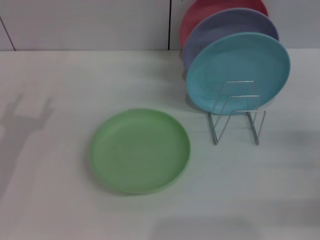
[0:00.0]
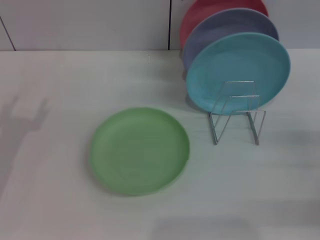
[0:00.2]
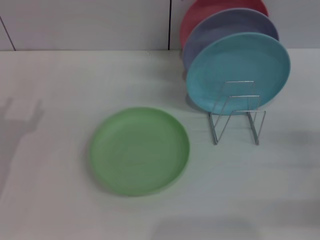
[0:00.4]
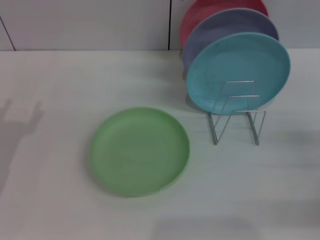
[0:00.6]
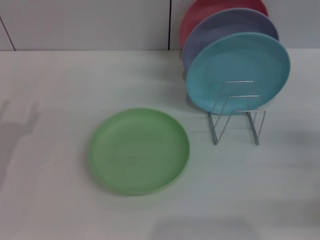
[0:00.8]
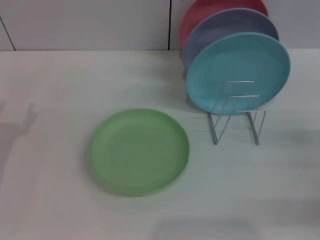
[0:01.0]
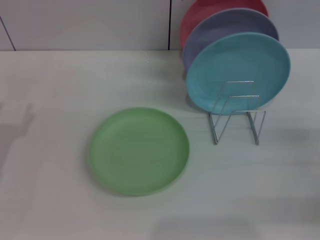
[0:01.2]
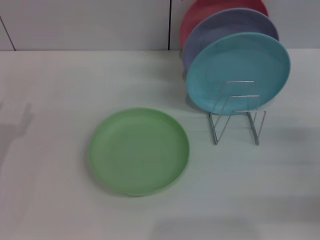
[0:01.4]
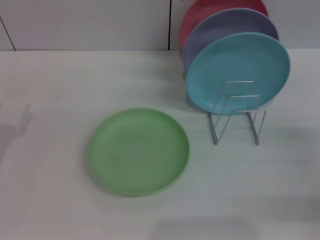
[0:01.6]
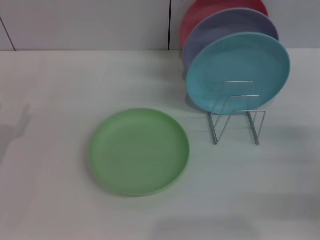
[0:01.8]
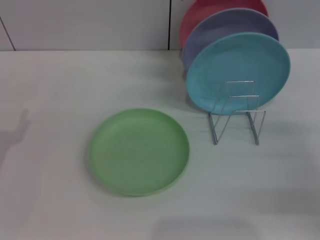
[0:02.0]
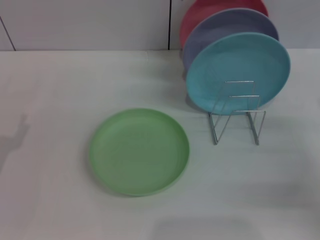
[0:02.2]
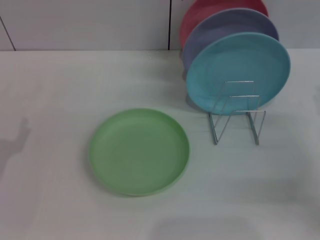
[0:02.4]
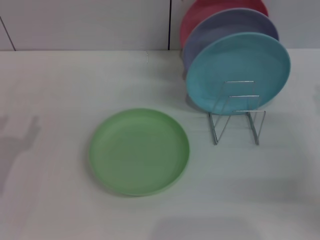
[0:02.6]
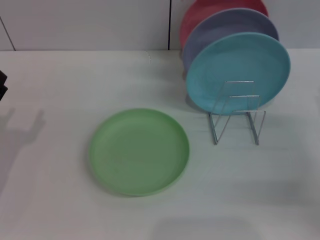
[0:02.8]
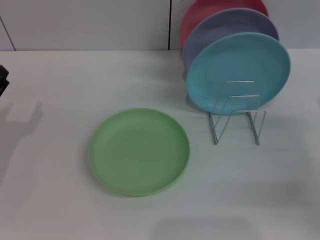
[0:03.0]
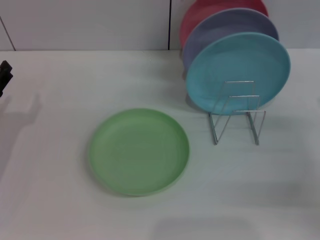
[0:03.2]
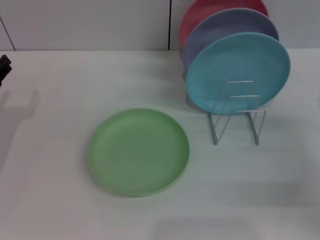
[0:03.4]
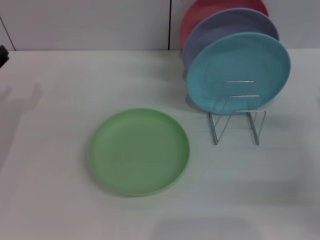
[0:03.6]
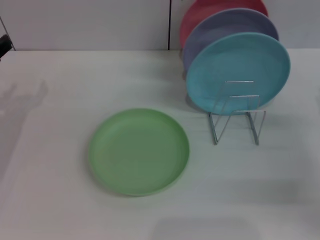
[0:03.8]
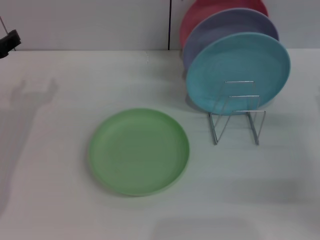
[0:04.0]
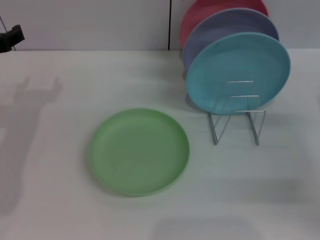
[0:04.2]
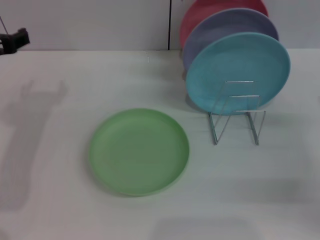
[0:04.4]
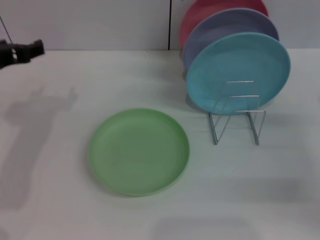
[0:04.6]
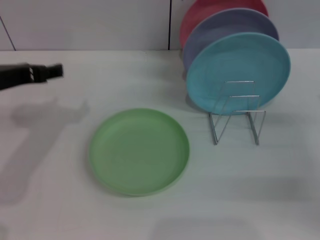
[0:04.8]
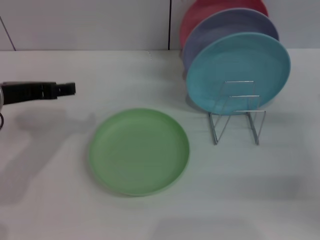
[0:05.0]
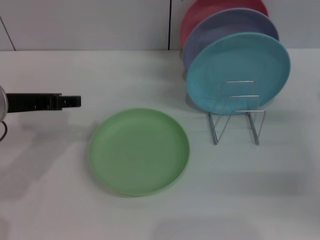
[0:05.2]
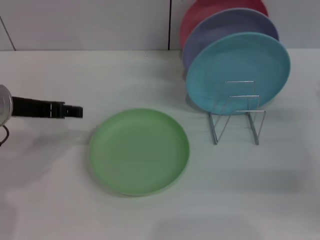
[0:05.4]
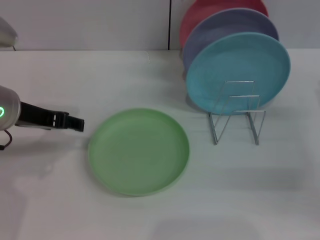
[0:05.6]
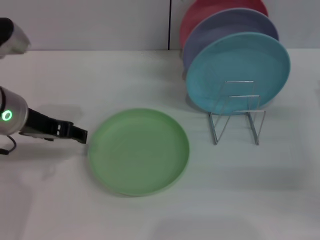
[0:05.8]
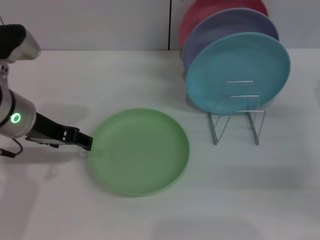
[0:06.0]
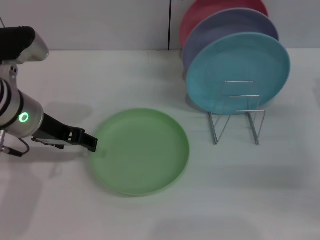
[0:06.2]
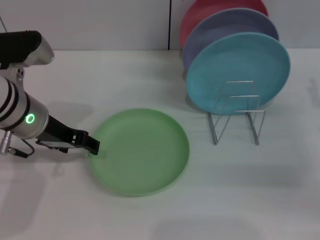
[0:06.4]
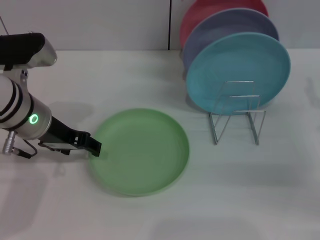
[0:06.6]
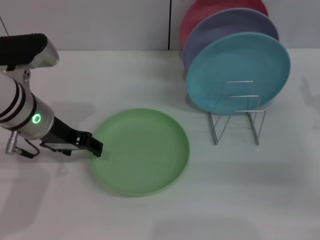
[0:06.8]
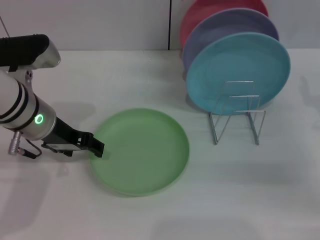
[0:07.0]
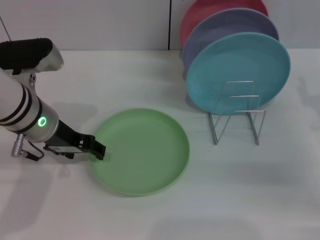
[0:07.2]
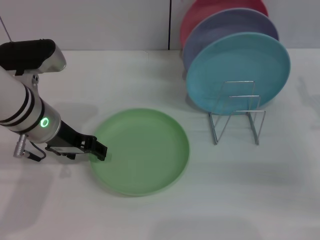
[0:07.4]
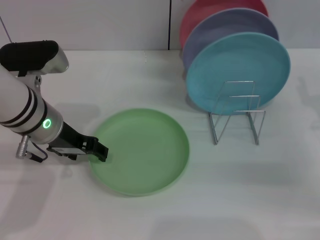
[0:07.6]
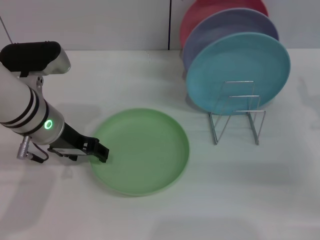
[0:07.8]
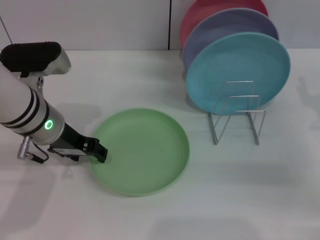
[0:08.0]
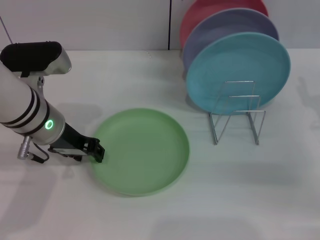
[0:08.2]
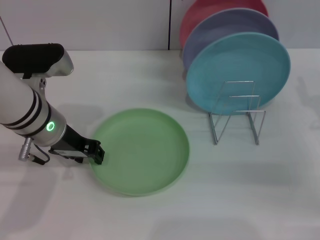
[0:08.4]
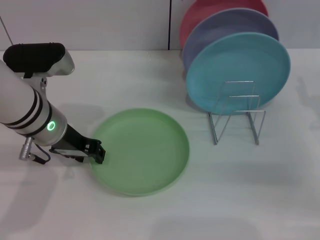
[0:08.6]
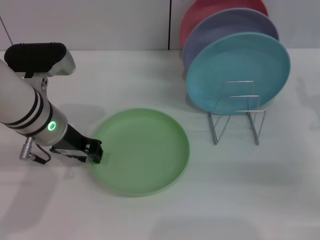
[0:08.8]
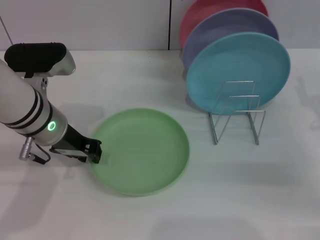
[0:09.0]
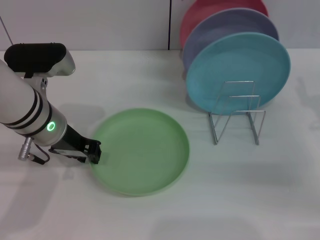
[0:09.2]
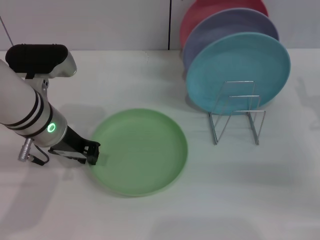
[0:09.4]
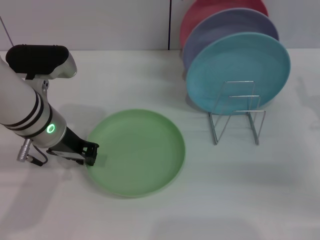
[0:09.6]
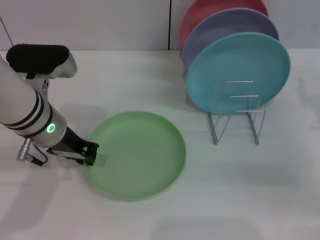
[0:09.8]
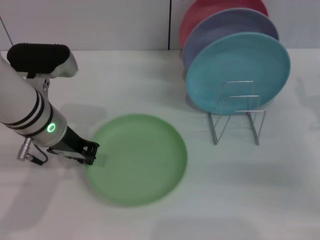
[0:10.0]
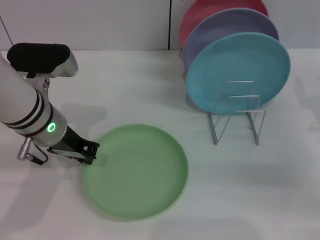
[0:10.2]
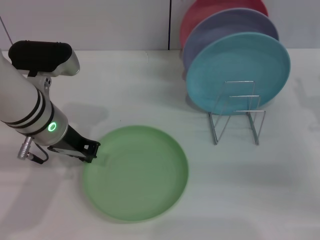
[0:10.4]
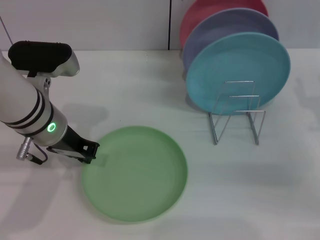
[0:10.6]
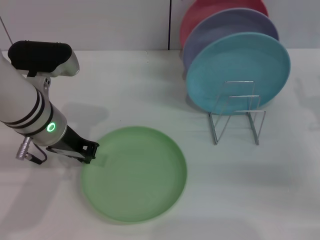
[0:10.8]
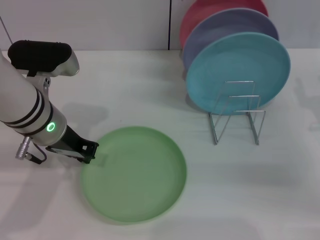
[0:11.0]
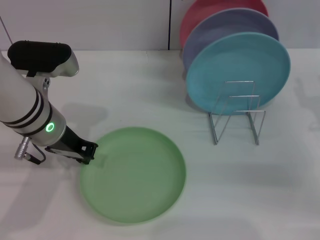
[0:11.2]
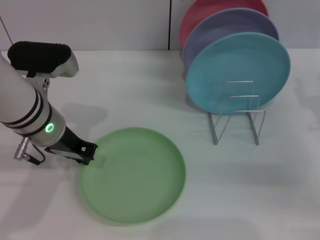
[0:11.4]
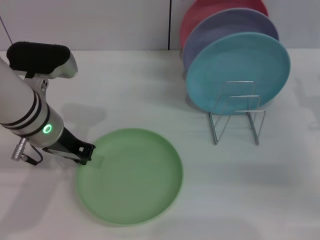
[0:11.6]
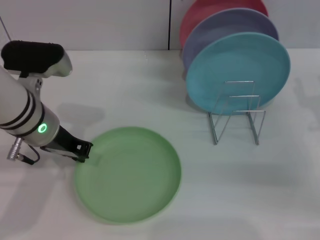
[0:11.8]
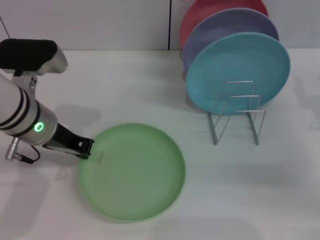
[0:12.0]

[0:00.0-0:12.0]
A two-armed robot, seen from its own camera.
Task of the whole recording: Grip the plate with one hand, pass it to the other, then set it on the shelf.
0:03.0 to 0:04.4: The left gripper travels upward and forward by some 15 cm.
0:04.4 to 0:06.0: The left gripper travels to the right by some 5 cm.
0:06.0 to 0:07.6: The grippers move only a little.
0:07.6 to 0:09.0: The left gripper closes its fingers.
0:09.0 to 0:10.4: The two grippers keep their place.
0:10.4 to 0:12.0: The grippers make only small movements.

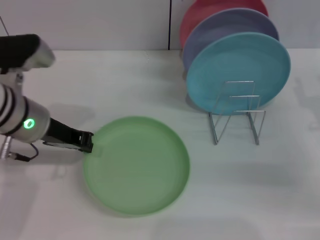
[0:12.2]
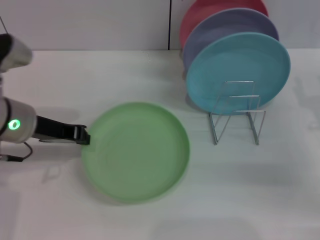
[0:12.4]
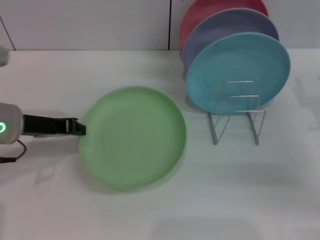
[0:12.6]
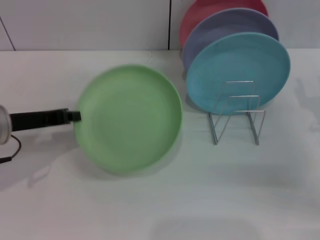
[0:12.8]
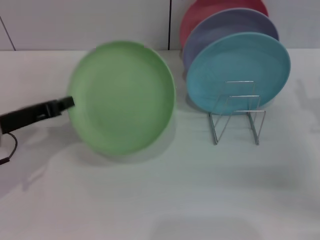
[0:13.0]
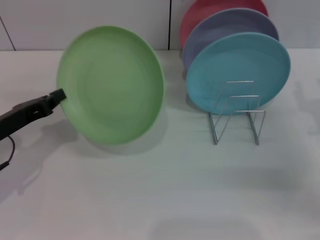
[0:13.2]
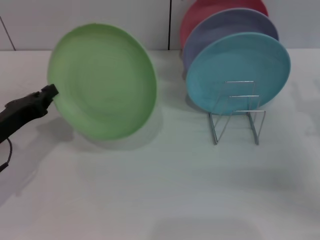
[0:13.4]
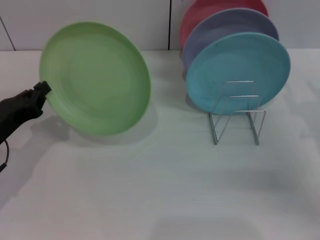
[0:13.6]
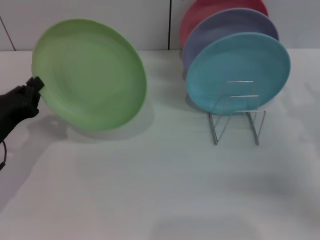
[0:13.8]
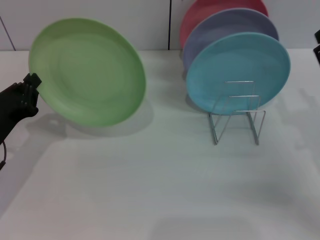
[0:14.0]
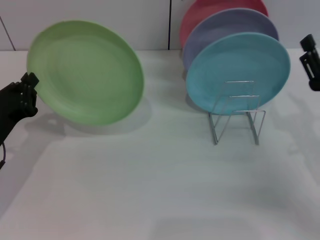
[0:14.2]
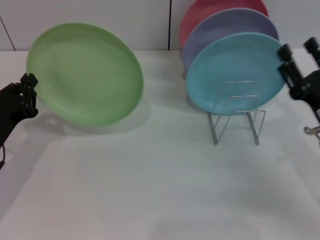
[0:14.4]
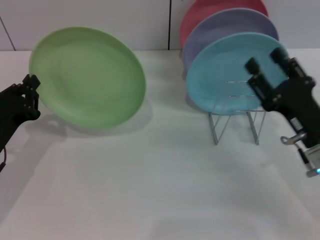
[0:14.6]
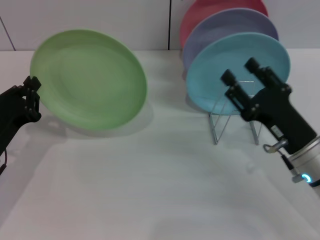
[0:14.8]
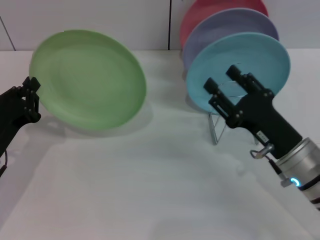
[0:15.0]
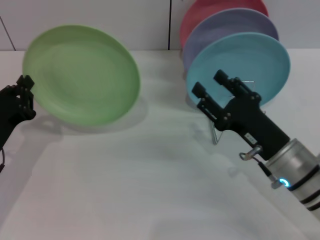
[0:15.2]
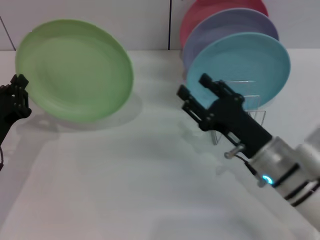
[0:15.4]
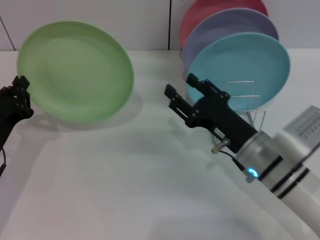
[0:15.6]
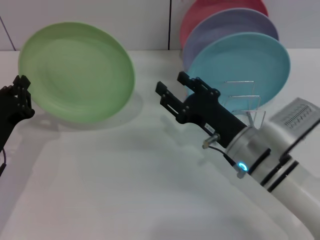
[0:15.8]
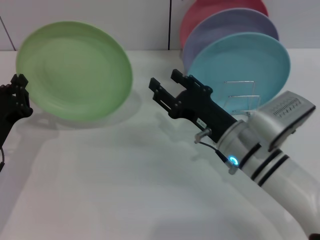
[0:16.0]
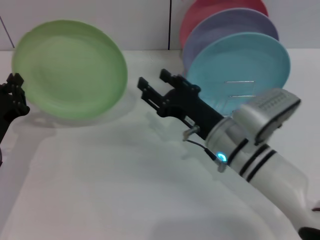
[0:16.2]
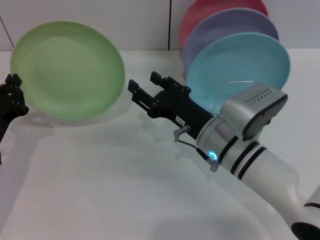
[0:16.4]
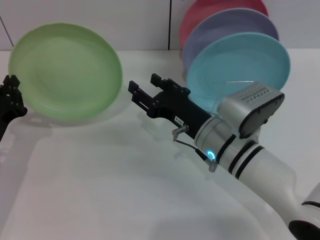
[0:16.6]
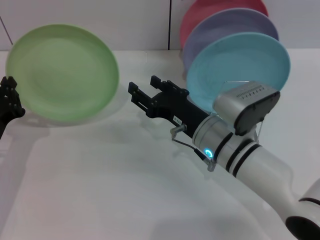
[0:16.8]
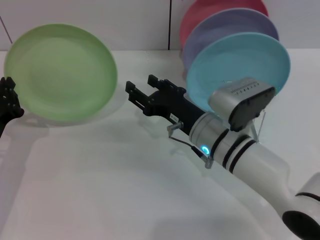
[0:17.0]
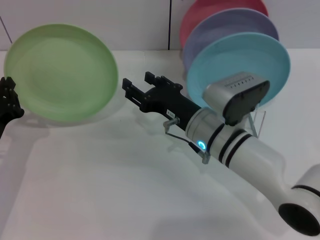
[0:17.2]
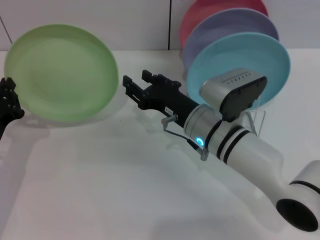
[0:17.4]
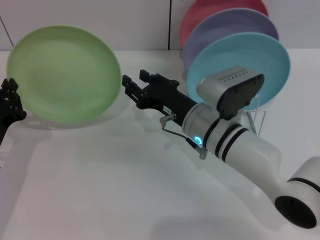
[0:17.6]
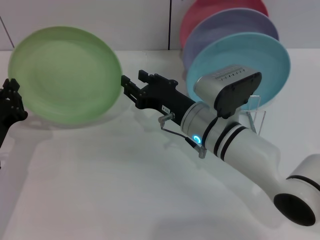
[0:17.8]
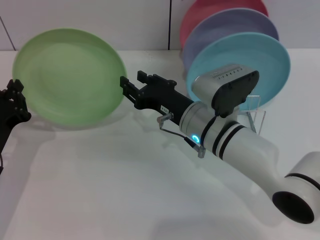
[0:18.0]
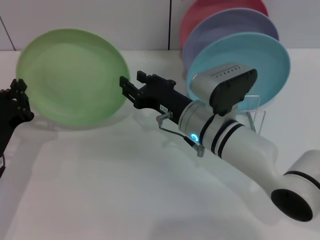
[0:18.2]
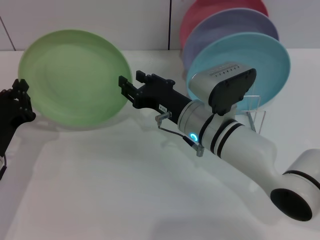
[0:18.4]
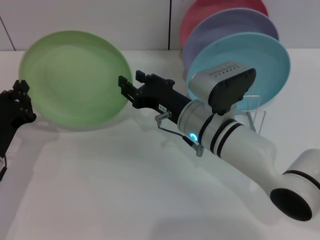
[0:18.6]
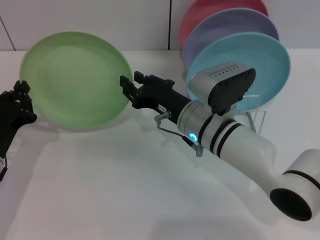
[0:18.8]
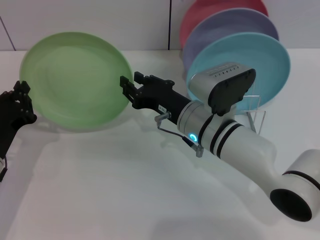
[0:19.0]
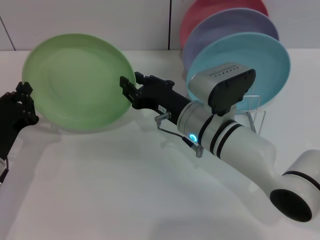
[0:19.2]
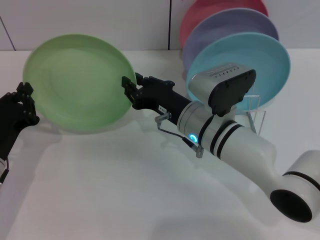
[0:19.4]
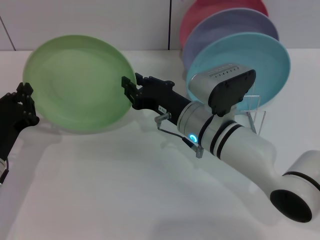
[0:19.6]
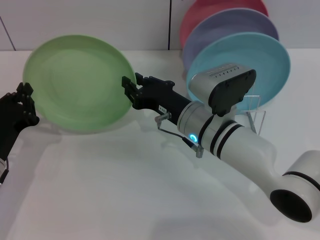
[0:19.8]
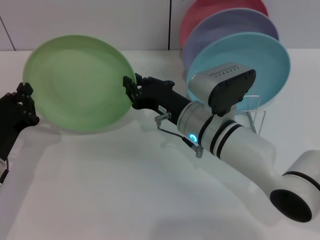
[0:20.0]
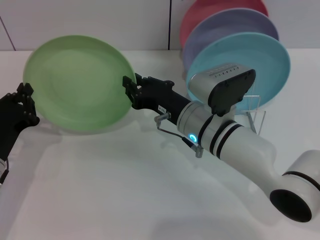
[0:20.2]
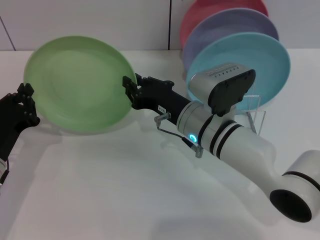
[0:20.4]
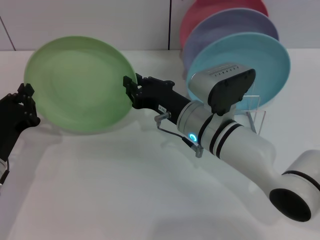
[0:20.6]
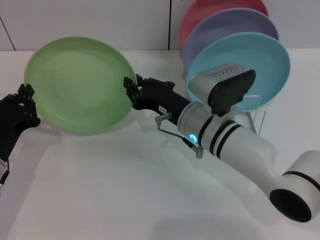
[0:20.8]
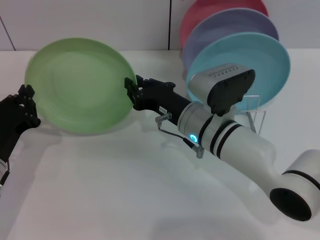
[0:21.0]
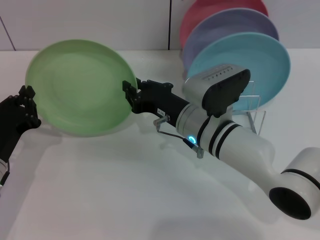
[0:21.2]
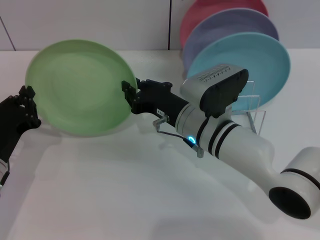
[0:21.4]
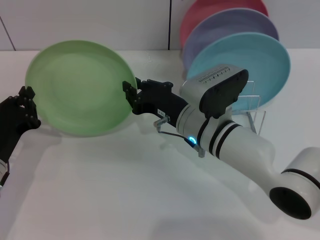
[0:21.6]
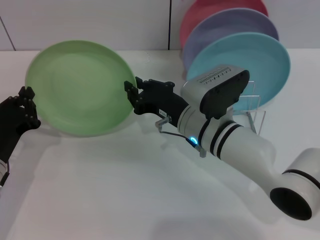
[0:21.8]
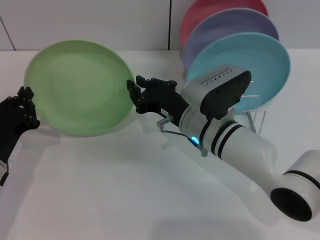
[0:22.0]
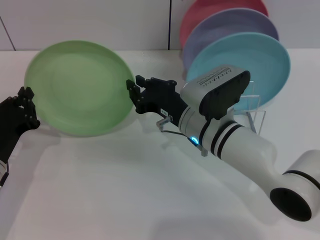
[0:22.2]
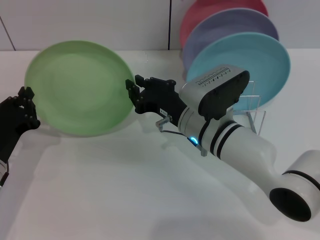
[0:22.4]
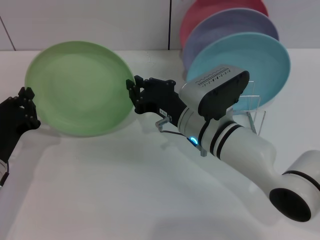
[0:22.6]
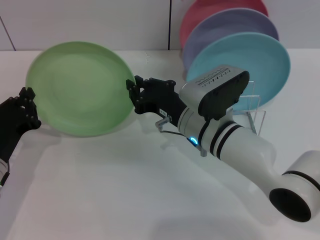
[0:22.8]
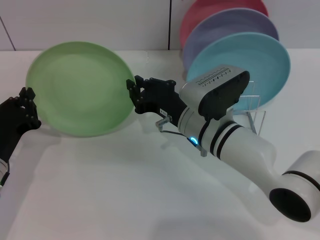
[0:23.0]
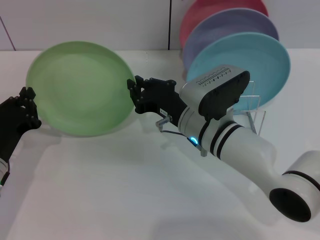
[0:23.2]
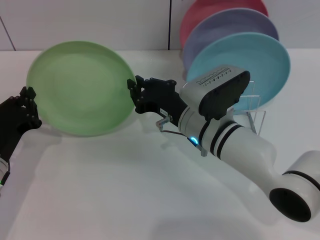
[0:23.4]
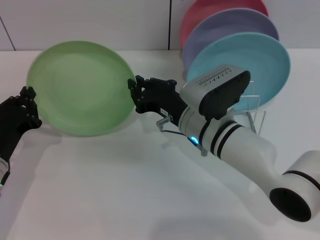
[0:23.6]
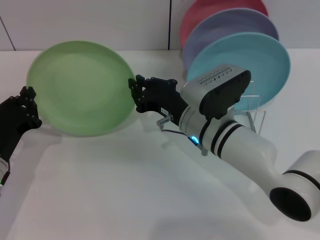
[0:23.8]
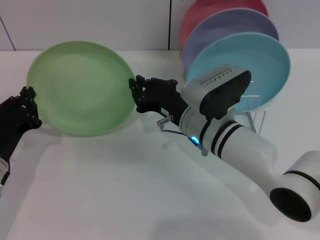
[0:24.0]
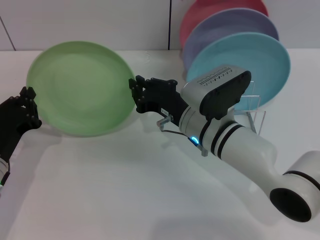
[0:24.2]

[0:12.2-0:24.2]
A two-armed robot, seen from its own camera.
Task of the whole recording: Grip the plate with one hand, pass it to the other, then set it on the shelf.
0:12.2 to 0:13.8: The left gripper travels downward, to the left and backward by some 15 cm.
0:13.8 to 0:15.2: The right gripper shifts approximately 10 cm to the left.
0:15.2 to 0:16.6: The right gripper is displaced to the left by roughly 10 cm.
0:16.6 to 0:18.2: The grippers make only small movements.
0:18.2 to 0:21.2: Both grippers stay about where they are.
0:21.2 to 0:22.6: The grippers move only a little.
0:22.6 to 0:24.2: Neither gripper changes place.
